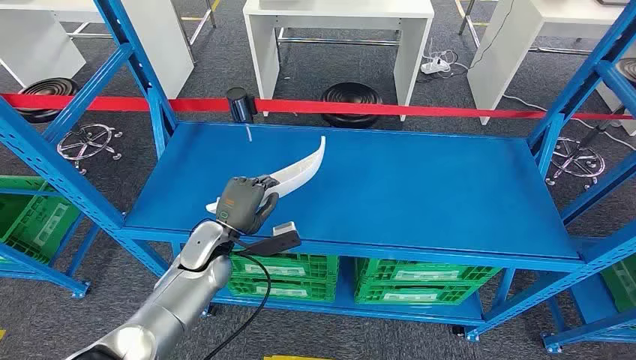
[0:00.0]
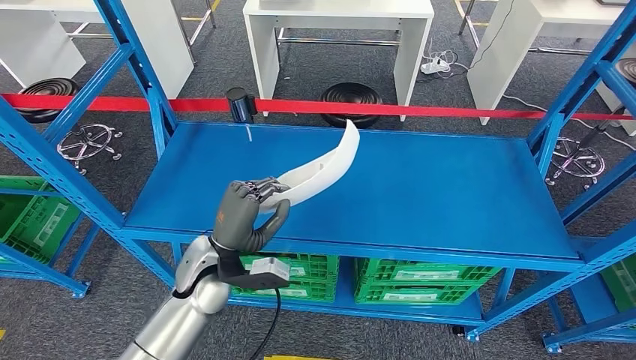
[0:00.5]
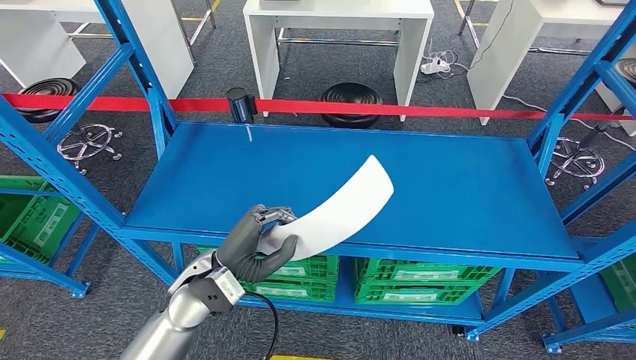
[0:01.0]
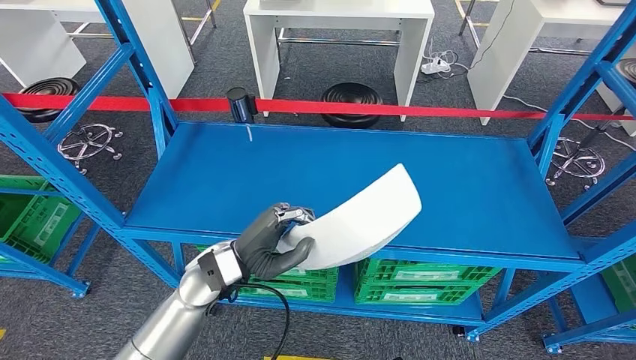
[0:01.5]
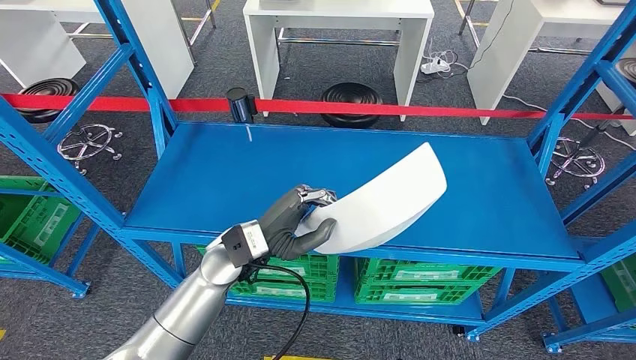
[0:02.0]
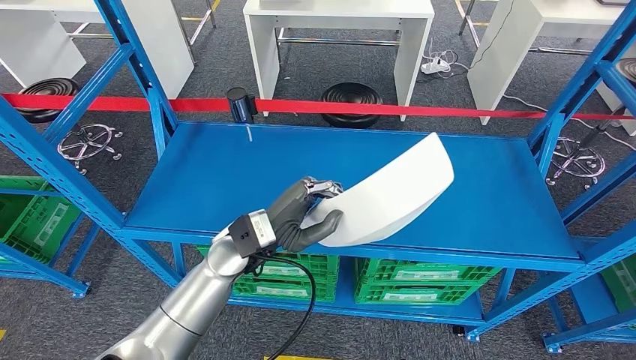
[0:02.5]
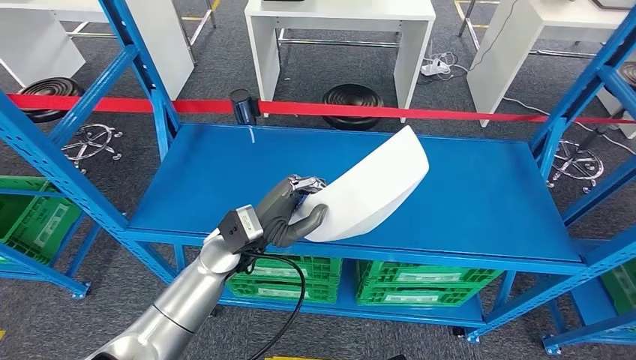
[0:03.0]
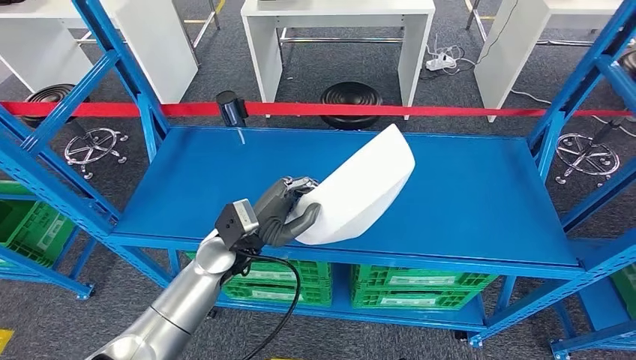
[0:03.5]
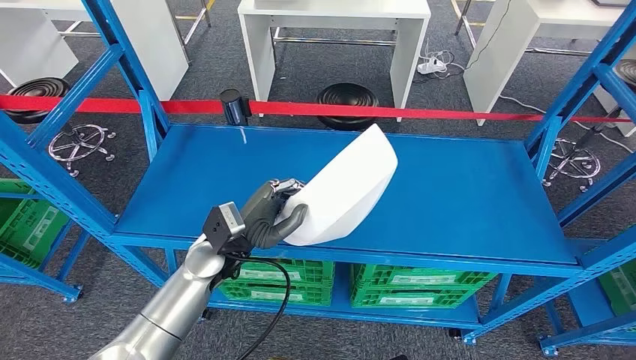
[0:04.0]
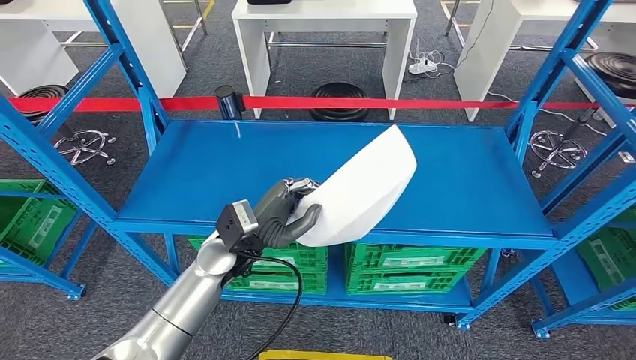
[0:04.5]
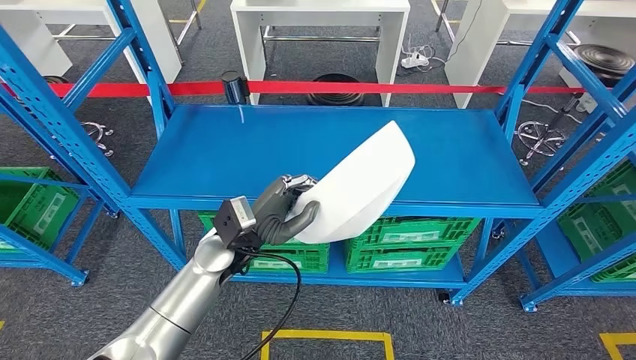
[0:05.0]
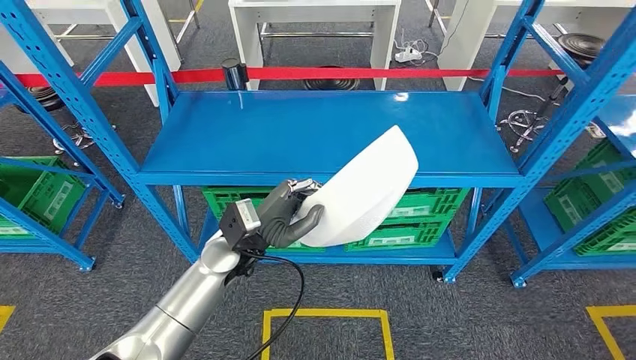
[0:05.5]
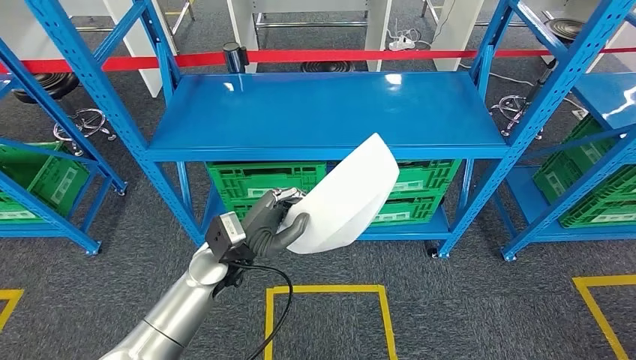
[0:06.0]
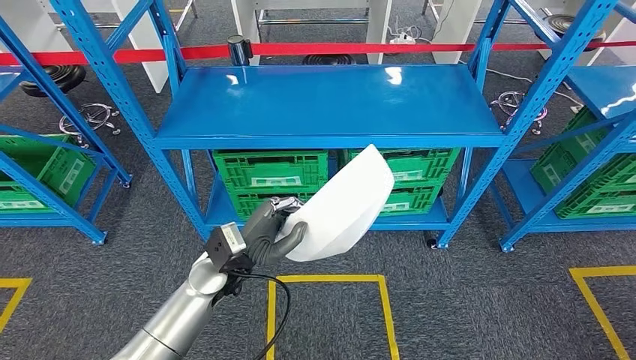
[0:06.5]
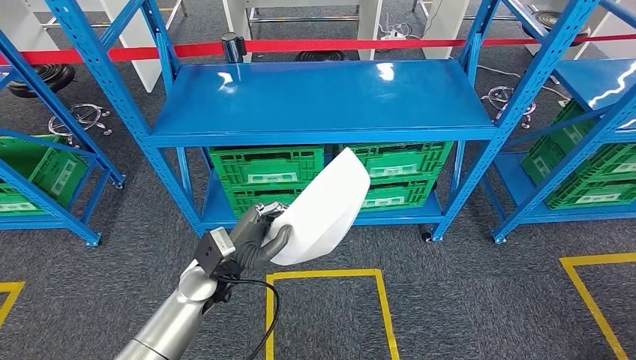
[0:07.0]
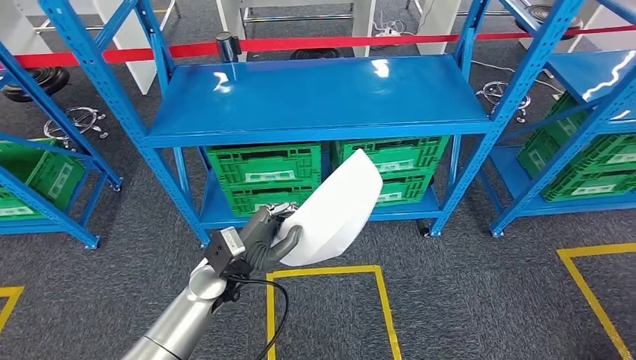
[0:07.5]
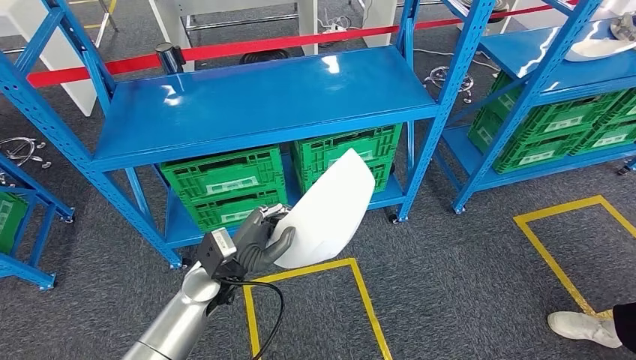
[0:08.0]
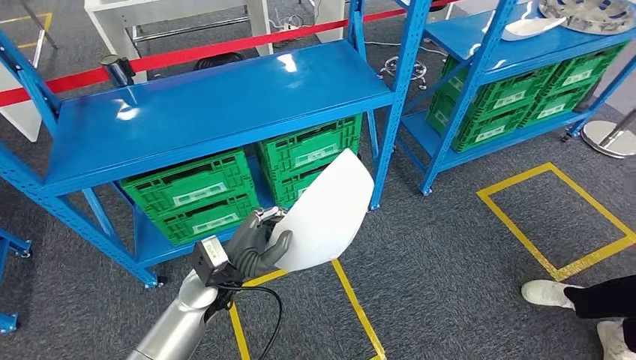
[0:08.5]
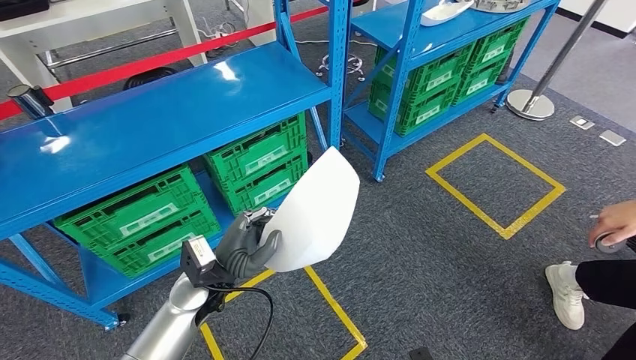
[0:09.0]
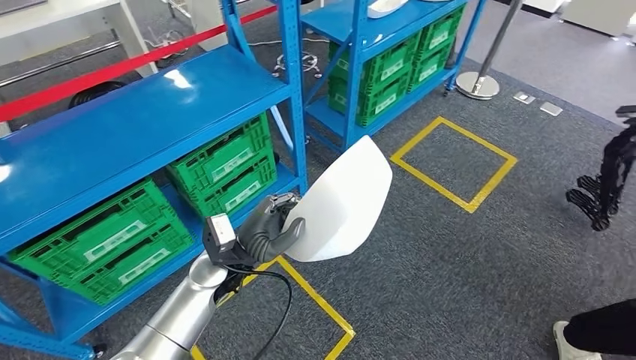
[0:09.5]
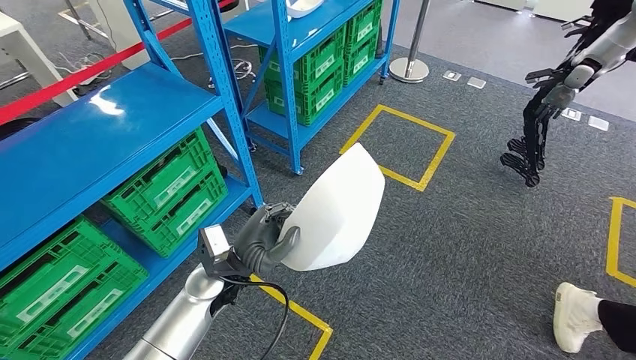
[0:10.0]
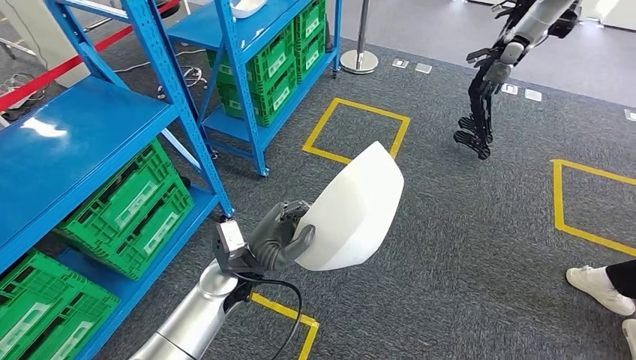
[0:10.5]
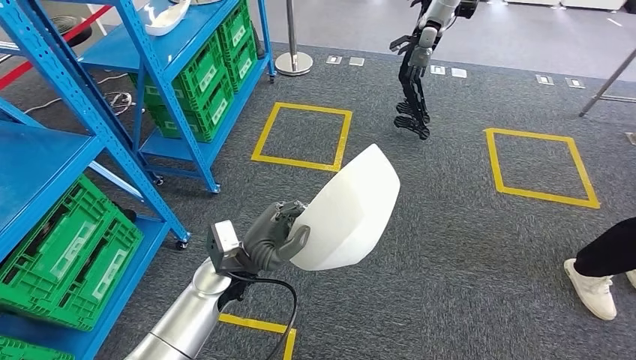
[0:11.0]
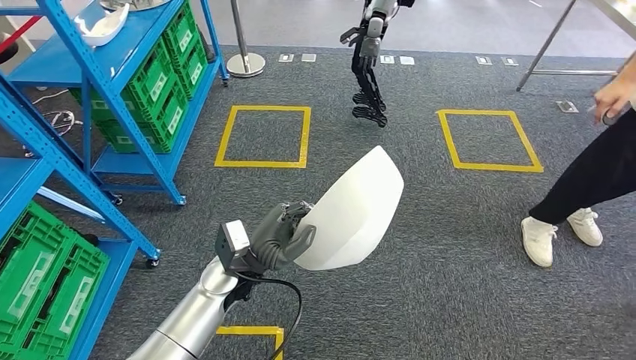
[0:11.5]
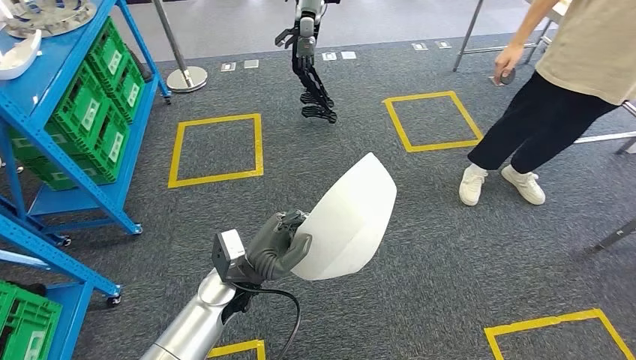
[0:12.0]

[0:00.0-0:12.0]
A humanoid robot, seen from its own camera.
Step, 0:00.0 to 0:02.0: Pick up the small component from the shelf.

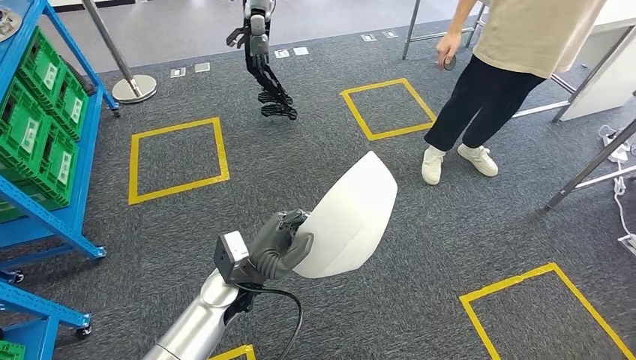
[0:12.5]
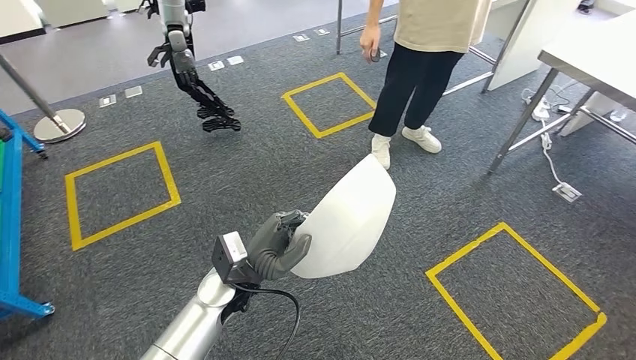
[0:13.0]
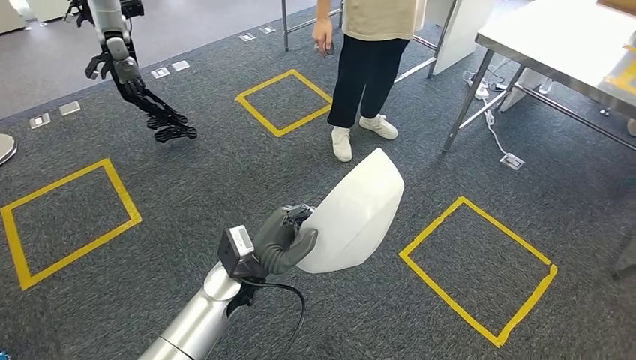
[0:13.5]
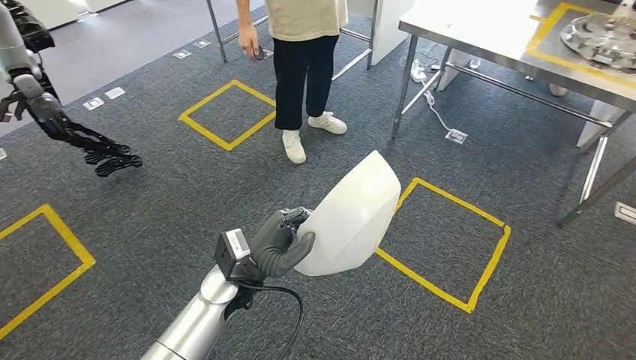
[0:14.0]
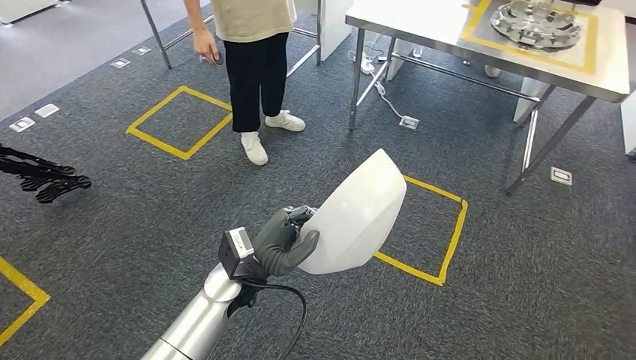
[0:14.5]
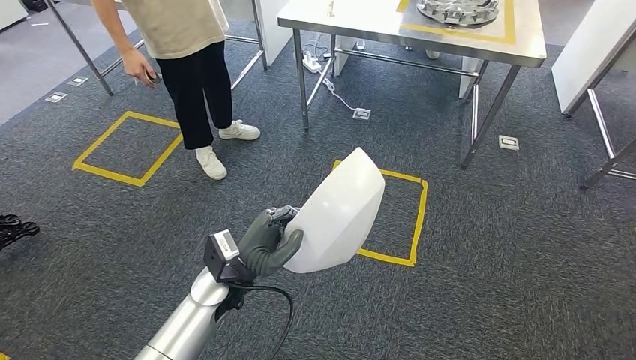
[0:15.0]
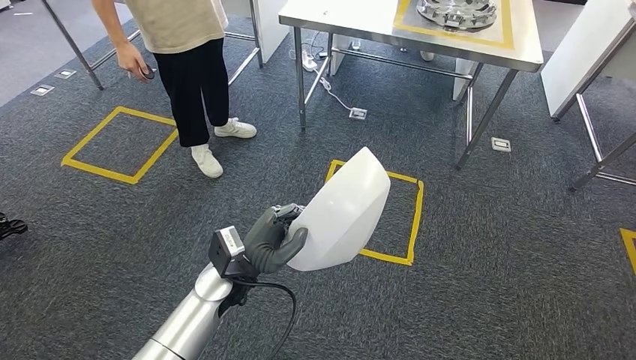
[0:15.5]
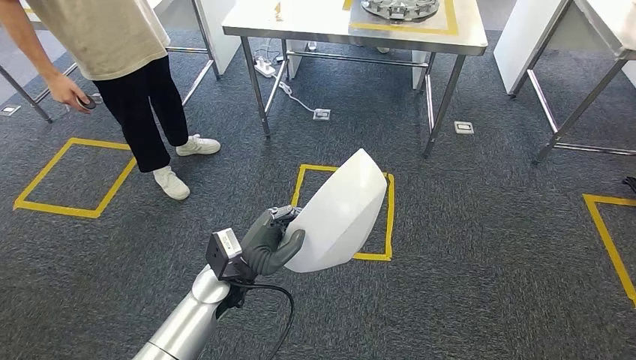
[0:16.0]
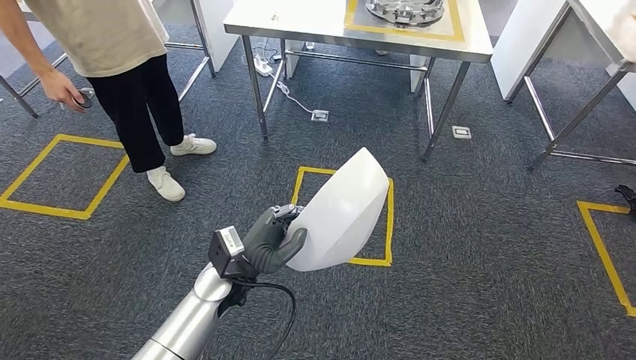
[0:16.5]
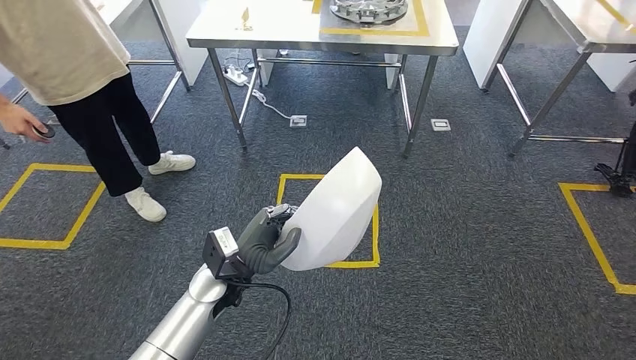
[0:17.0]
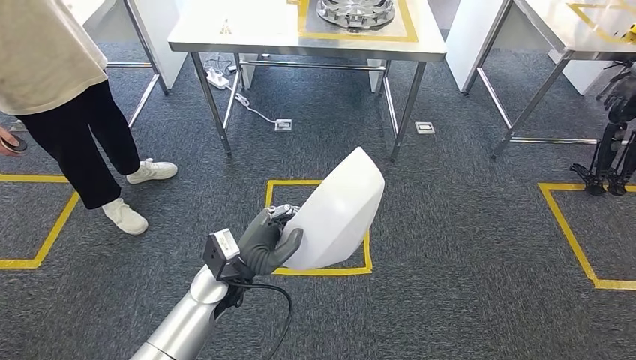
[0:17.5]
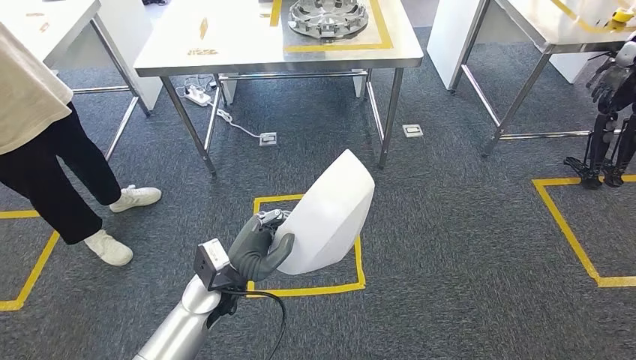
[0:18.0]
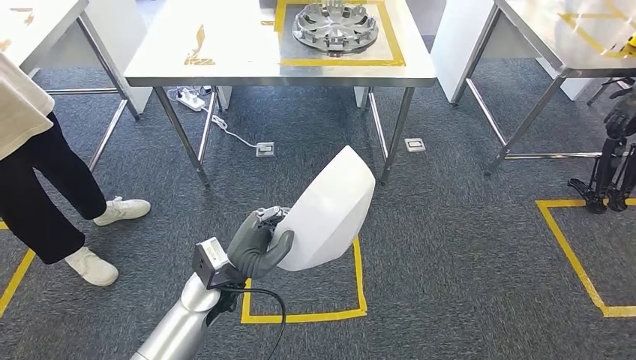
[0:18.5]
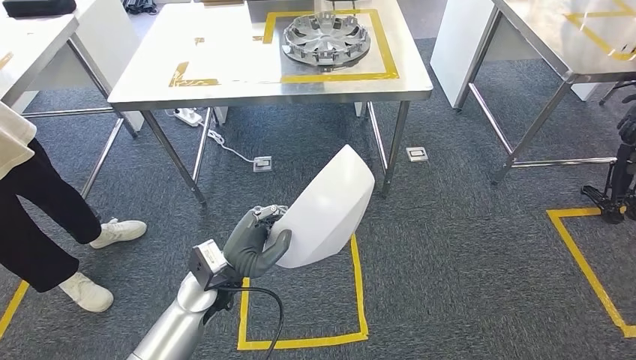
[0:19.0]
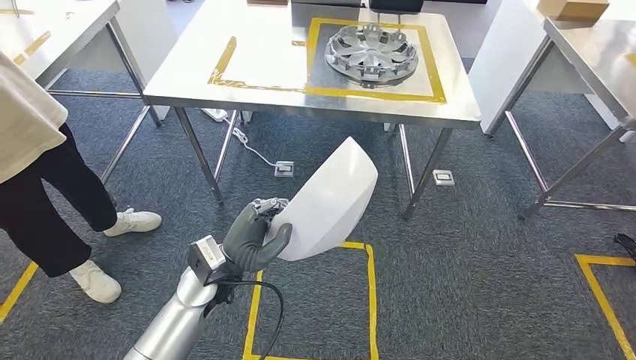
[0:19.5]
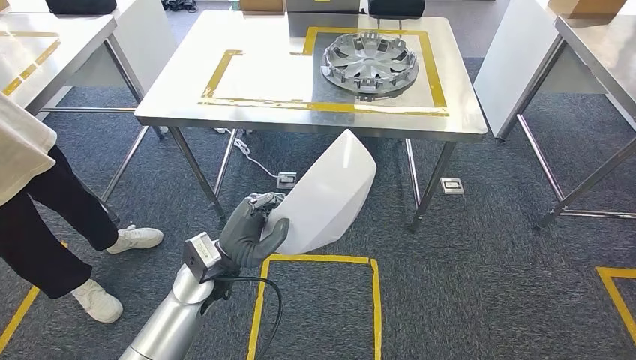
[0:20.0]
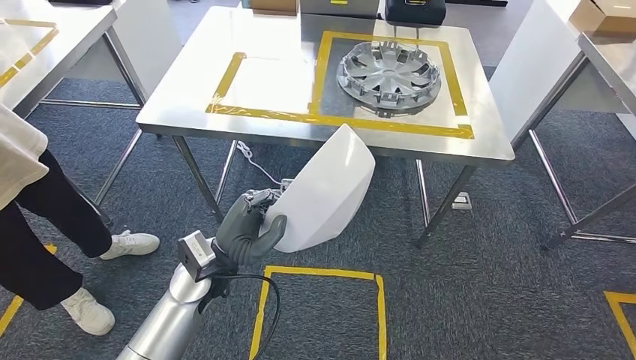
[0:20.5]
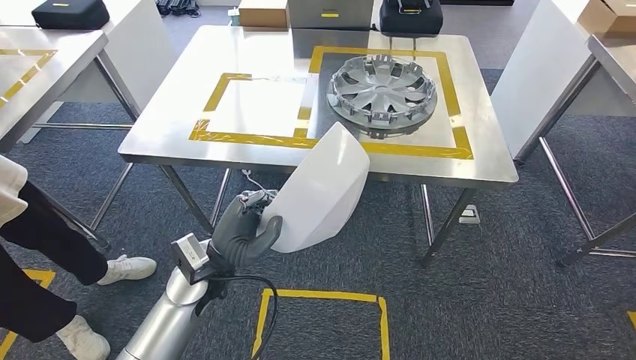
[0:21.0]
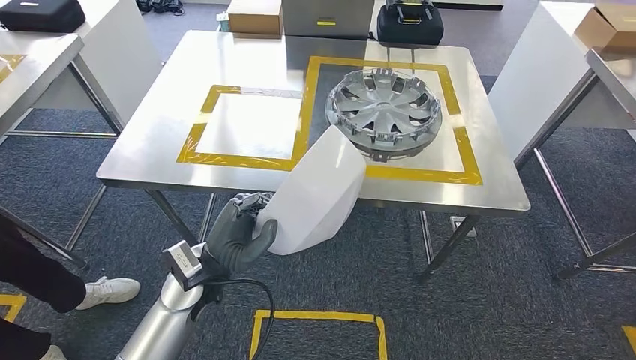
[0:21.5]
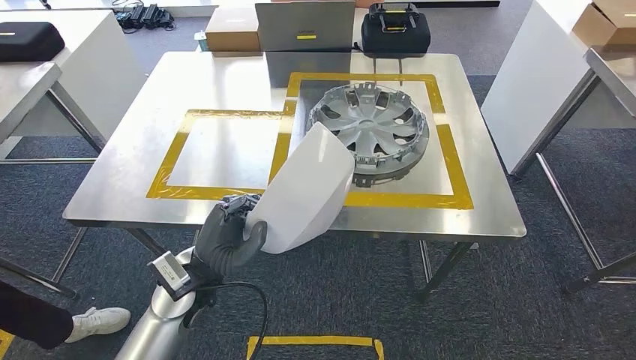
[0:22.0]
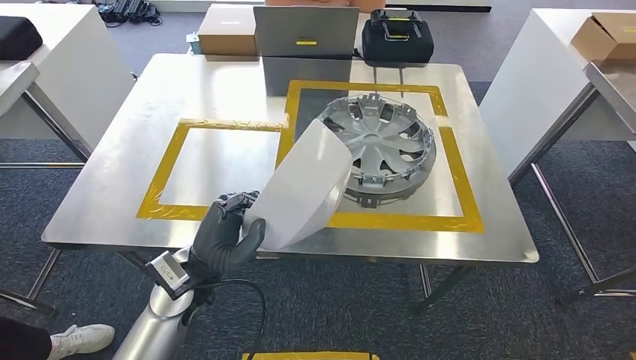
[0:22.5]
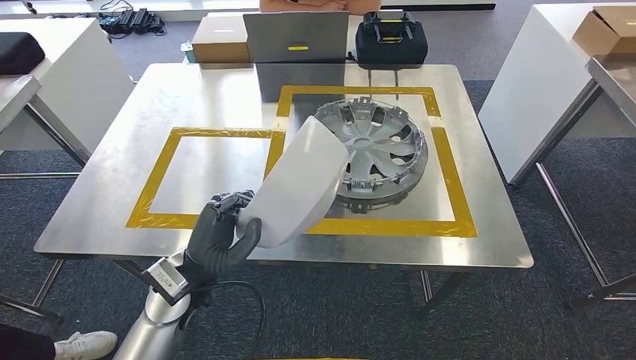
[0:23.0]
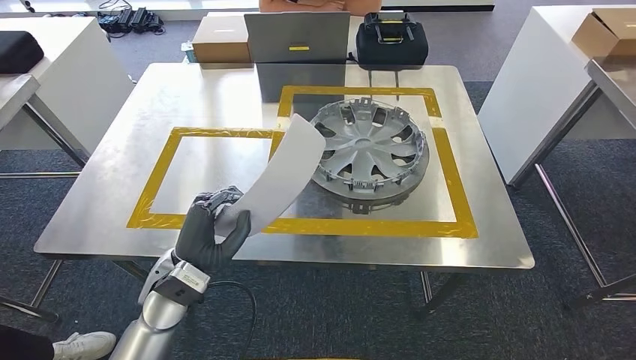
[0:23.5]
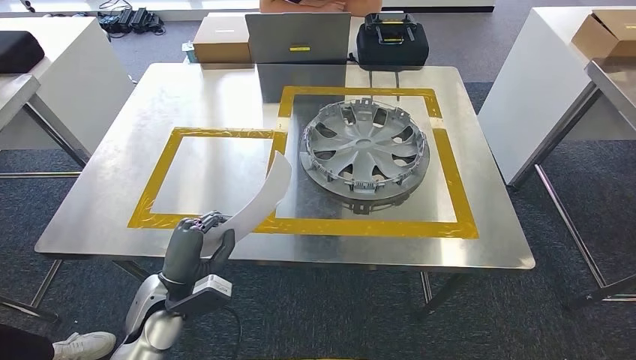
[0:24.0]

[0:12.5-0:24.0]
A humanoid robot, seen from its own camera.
Step, 0:12.5 to 0:22.5: Move the small component to the workbench.
